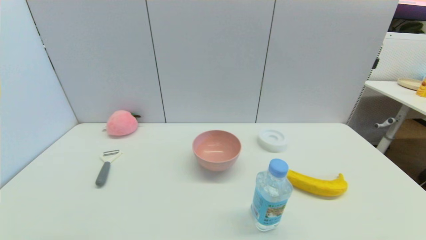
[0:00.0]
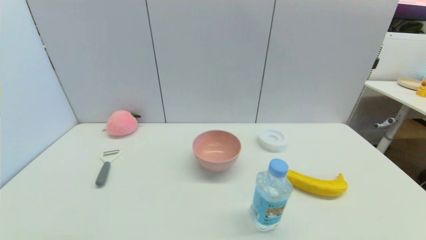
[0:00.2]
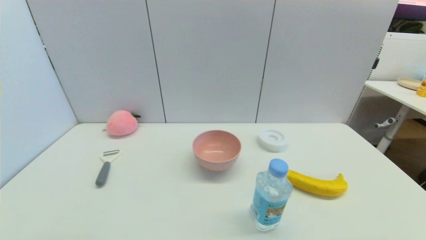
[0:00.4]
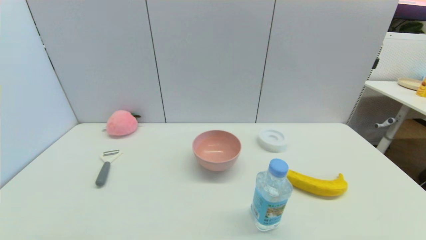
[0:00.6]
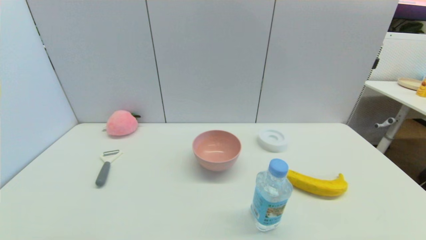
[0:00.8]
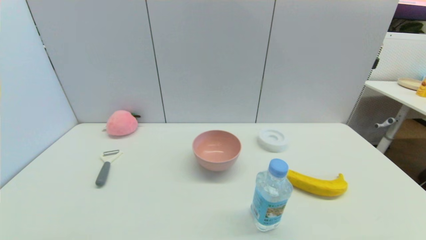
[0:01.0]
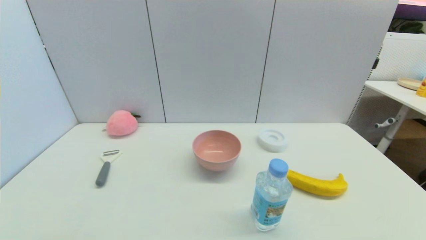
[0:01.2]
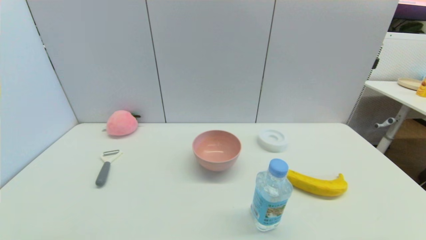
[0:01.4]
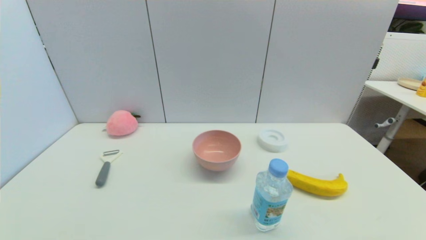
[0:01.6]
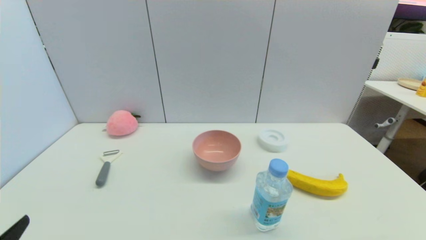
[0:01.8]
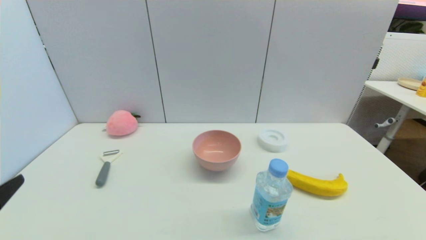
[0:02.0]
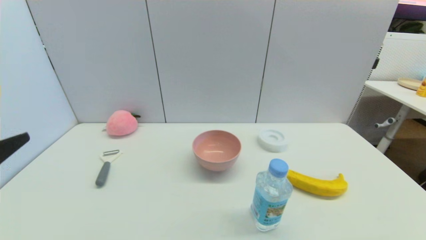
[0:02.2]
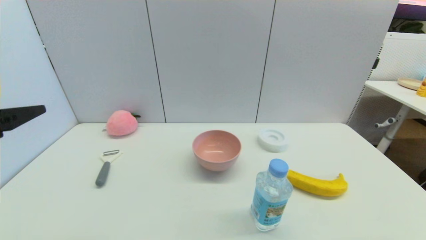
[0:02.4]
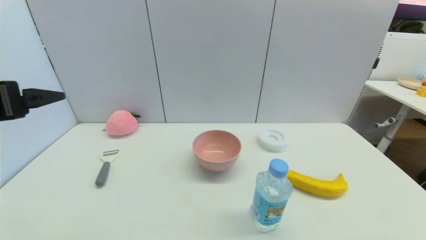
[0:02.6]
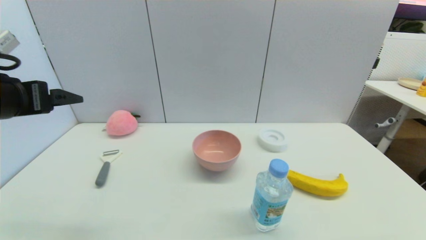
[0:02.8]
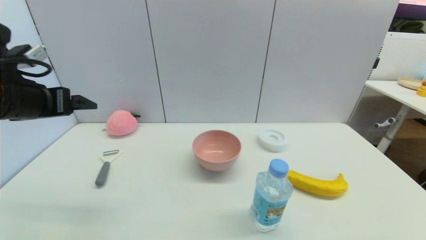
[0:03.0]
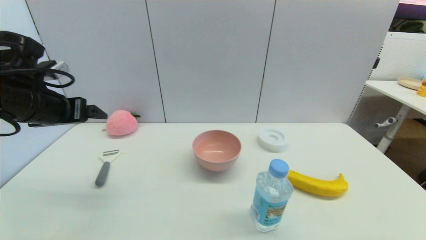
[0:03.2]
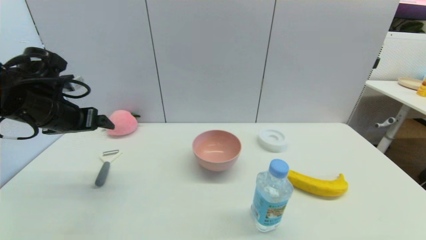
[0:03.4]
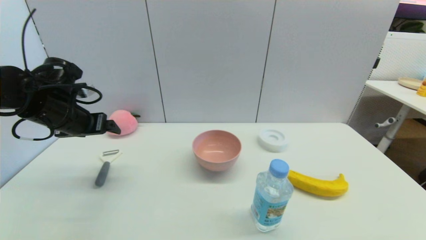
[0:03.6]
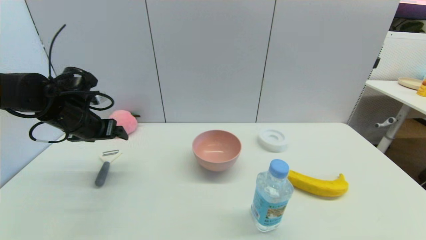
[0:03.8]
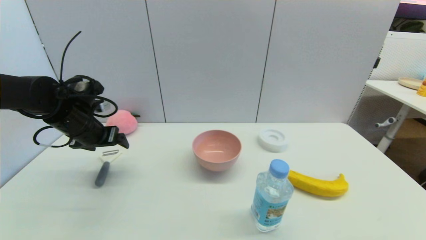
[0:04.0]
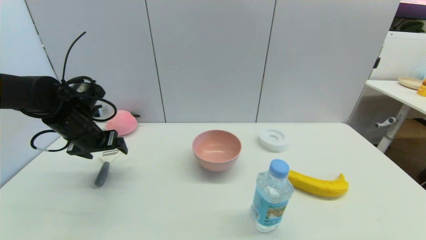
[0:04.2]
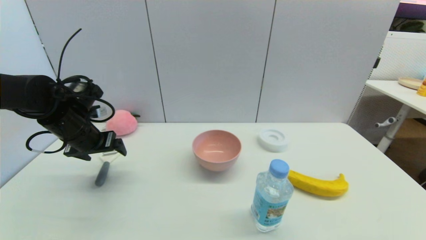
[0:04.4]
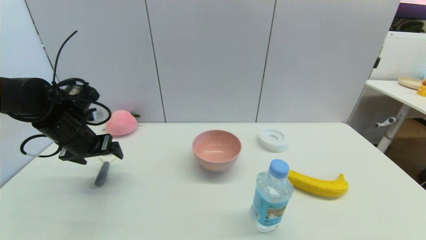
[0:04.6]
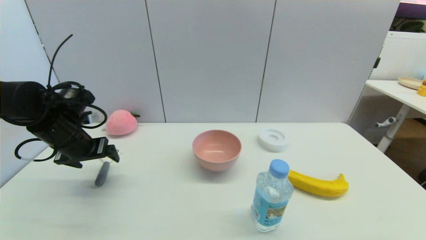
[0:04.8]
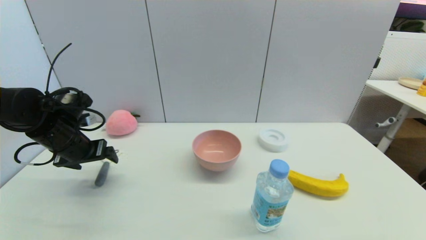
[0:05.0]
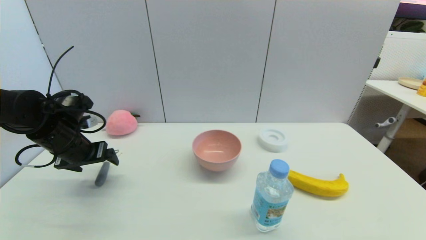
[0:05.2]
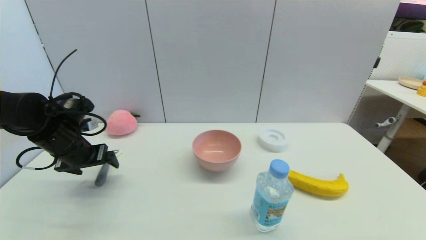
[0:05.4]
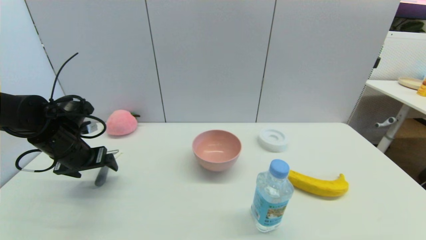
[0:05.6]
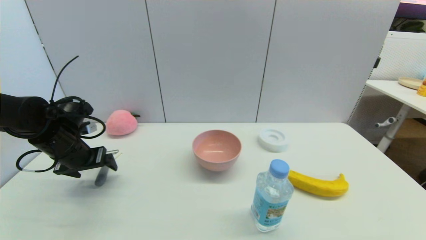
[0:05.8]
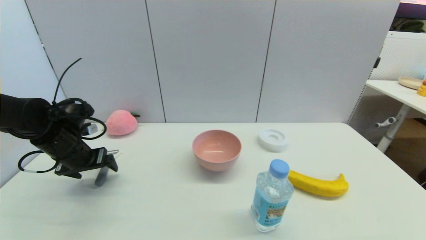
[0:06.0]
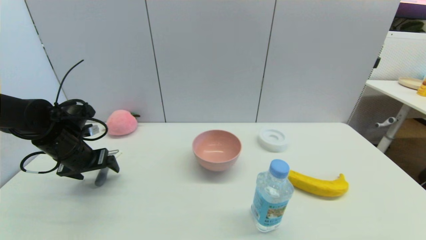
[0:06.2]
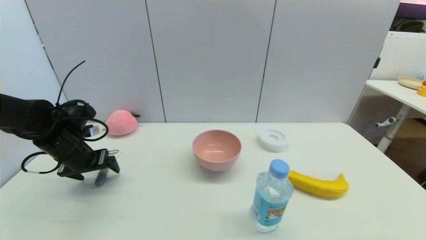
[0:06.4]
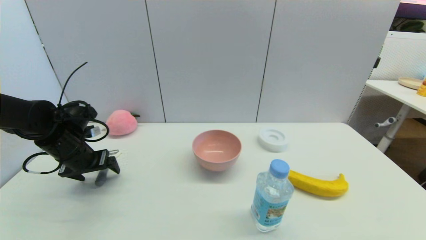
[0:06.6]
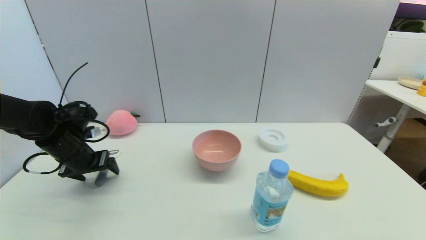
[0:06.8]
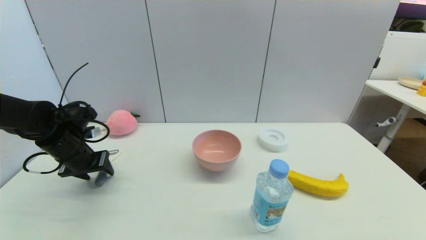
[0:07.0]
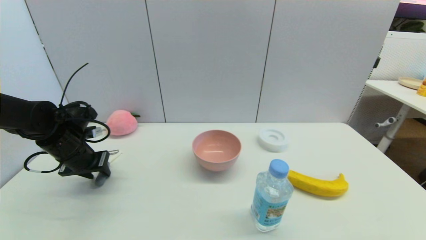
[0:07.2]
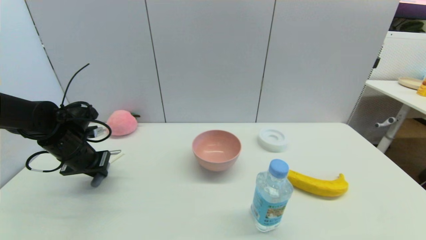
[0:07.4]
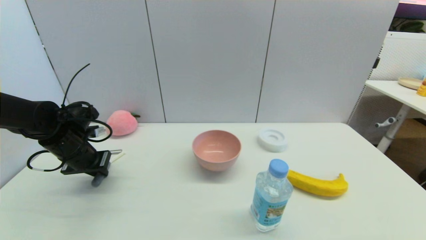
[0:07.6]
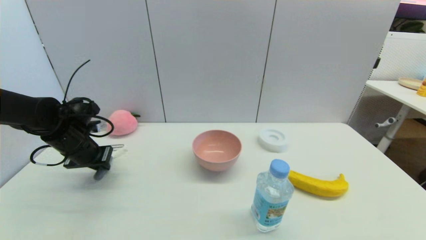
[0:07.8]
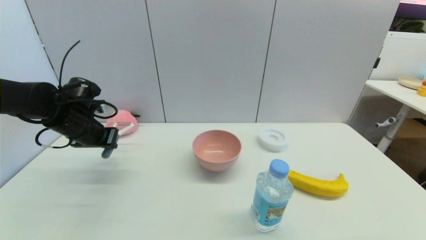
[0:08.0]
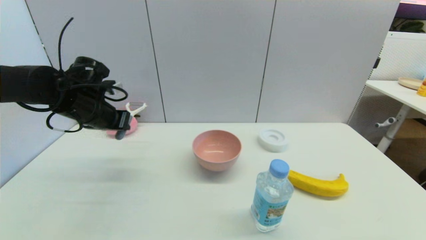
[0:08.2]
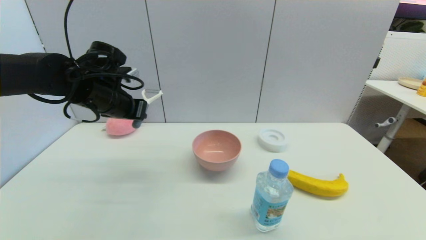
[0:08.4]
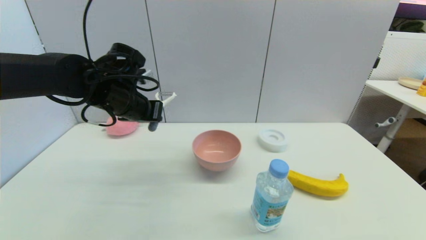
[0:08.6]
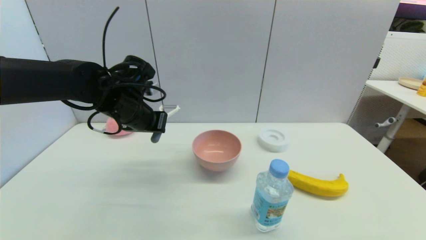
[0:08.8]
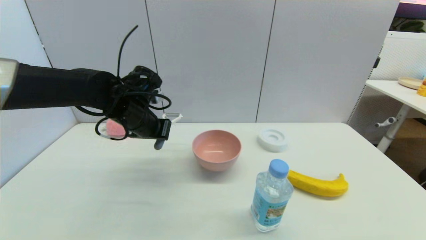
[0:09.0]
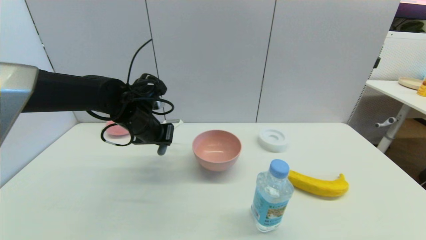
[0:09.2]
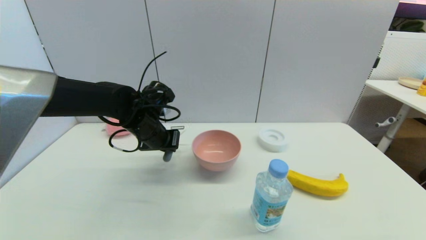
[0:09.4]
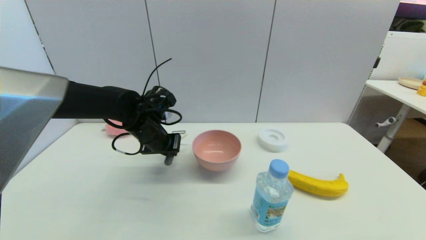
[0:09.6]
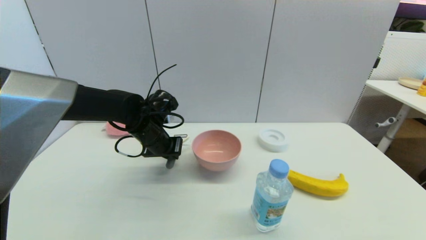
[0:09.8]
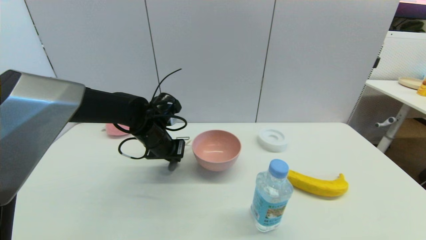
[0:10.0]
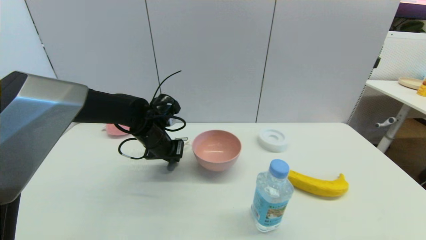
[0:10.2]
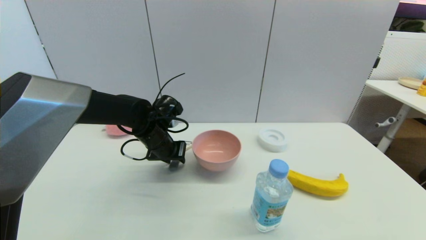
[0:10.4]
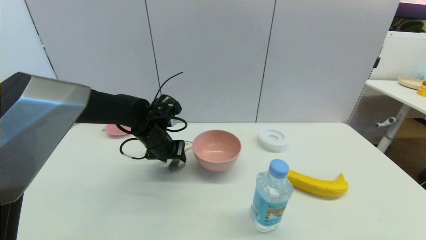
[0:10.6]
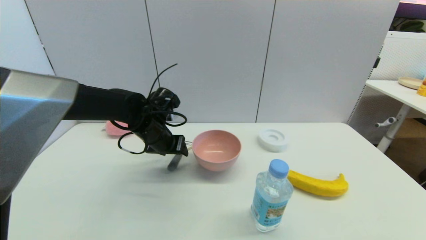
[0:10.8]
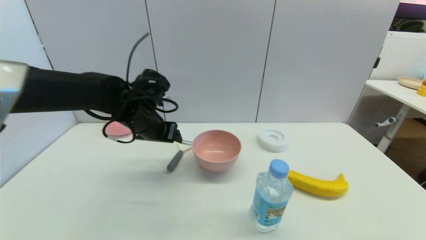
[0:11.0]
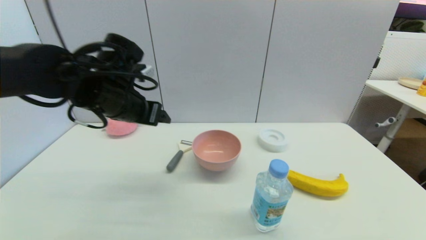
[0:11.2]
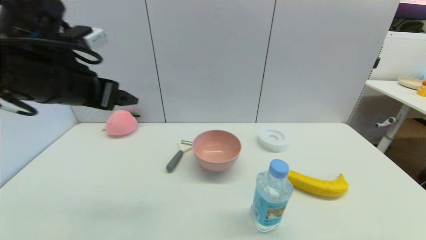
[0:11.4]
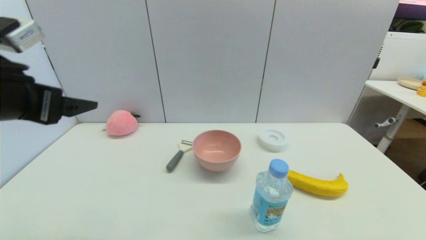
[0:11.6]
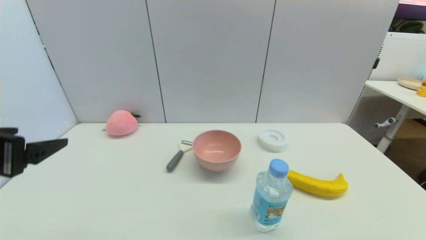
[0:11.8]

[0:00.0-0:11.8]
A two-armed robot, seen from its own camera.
Step, 0:01.8 to 0:07.8: Grasp the peeler with left gripper.
Step, 0:08.0 to 0:10.8: Place the peeler on the table with left gripper.
0:01.4 to 0:03.0: The left gripper shifts roughly 35 cm forward and upward.
0:03.0 to 0:04.4: The left gripper goes approximately 15 cm downward and forward.
0:04.4 to 0:06.0: There are only small adjustments of the grippers.
0:06.0 to 0:07.4: The left gripper closes up.
0:07.4 to 0:08.8: The left gripper travels to the right and upward by approximately 15 cm.
0:08.8 to 0:10.4: The left gripper goes about 10 cm downward, and opens its fingers.
0:10.4 to 0:11.8: The left gripper moves backward, to the left and upward, about 30 cm, and opens up.

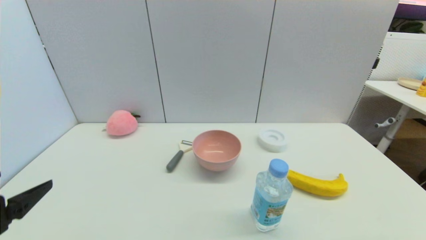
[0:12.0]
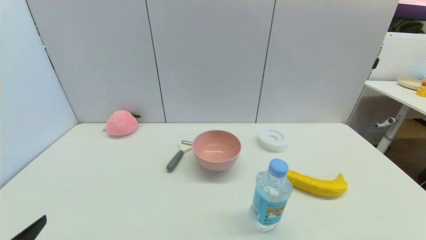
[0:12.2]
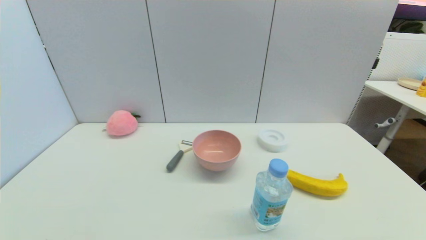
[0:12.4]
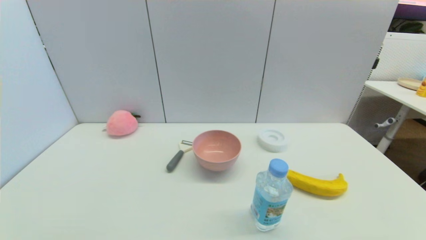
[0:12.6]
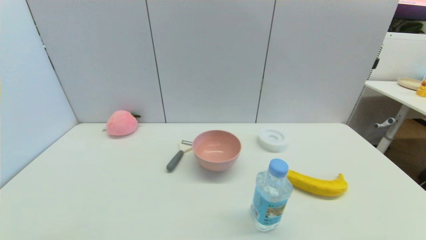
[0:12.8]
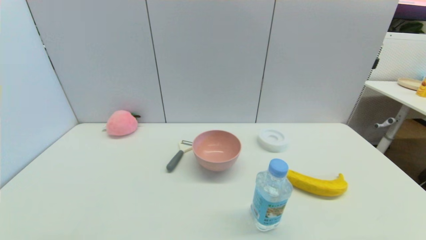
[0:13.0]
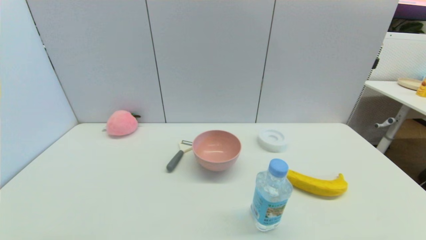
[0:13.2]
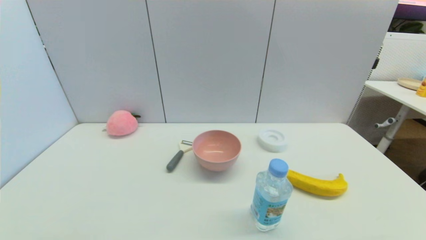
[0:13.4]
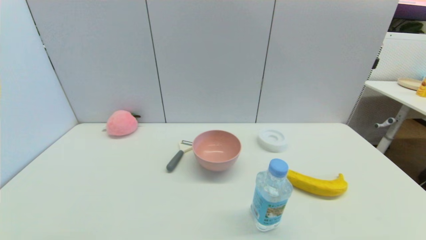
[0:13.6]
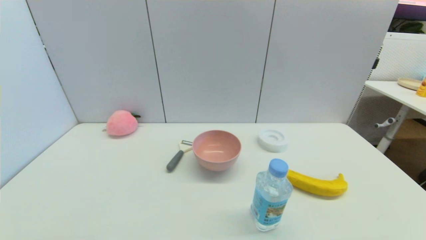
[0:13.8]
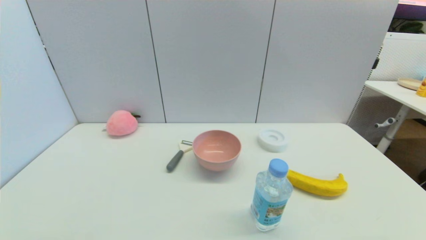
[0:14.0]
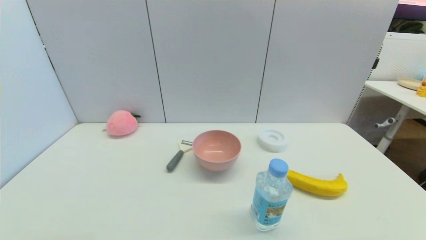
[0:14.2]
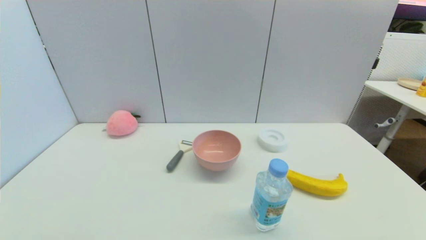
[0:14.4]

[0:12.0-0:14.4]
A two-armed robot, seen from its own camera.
0:12.0 to 0:13.2: The left gripper is displaced downward and backward by roughly 15 cm.
0:13.2 to 0:14.4: The two grippers keep their place.

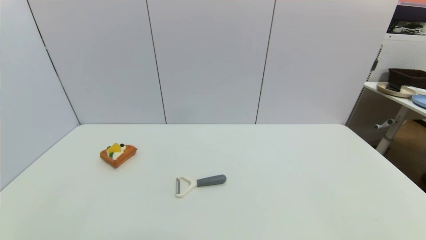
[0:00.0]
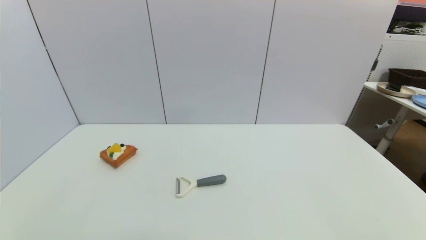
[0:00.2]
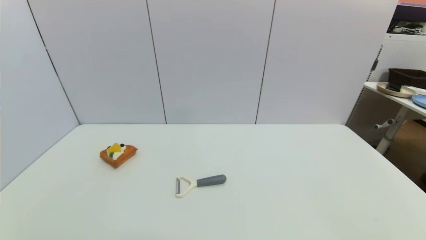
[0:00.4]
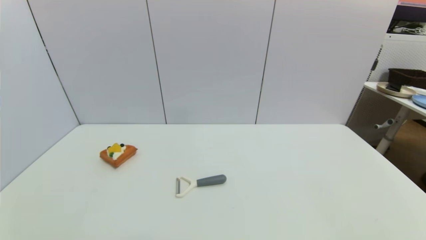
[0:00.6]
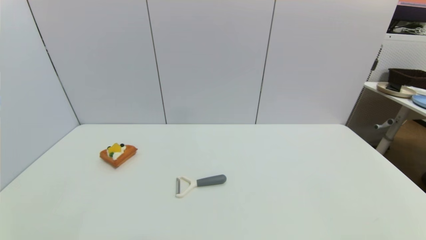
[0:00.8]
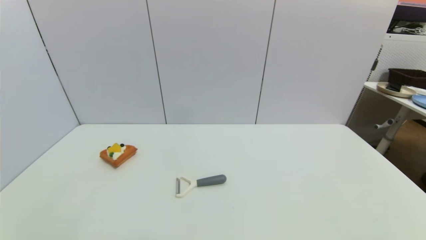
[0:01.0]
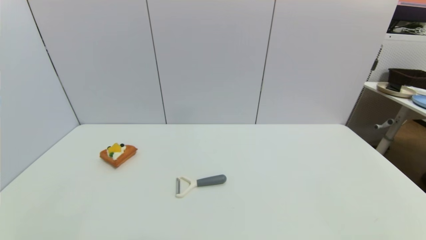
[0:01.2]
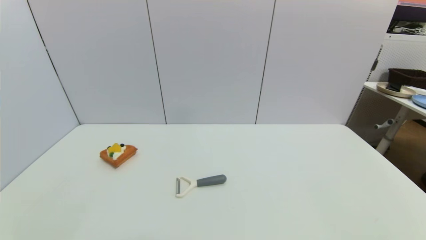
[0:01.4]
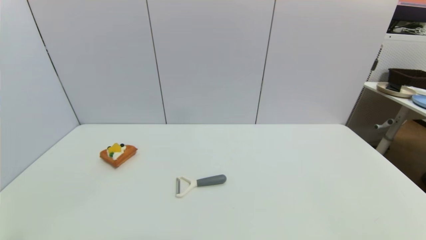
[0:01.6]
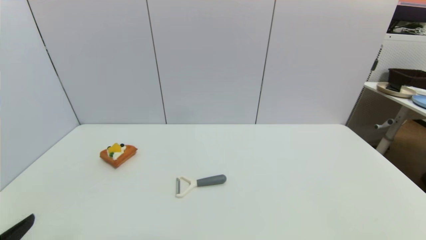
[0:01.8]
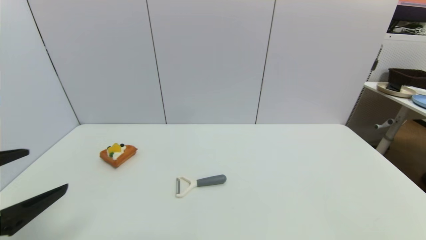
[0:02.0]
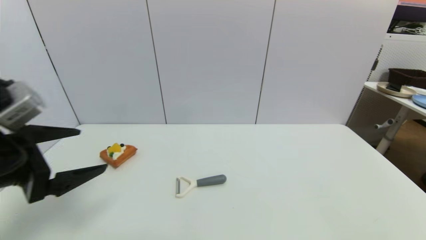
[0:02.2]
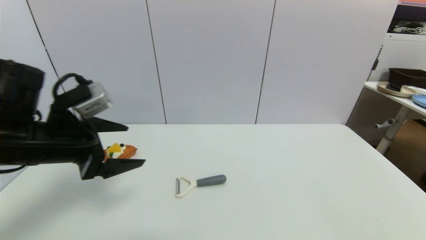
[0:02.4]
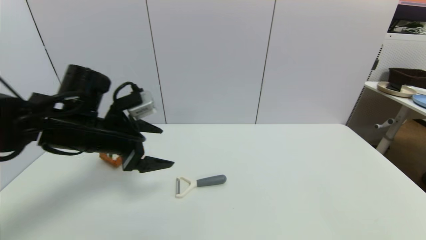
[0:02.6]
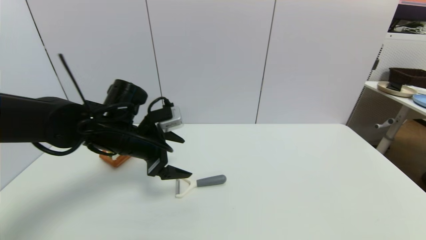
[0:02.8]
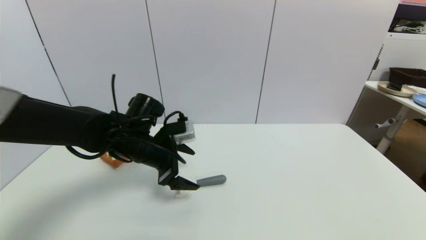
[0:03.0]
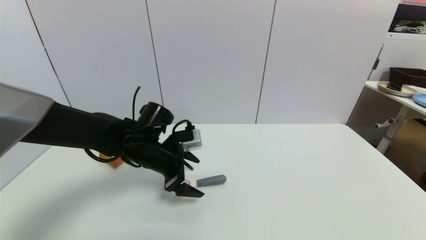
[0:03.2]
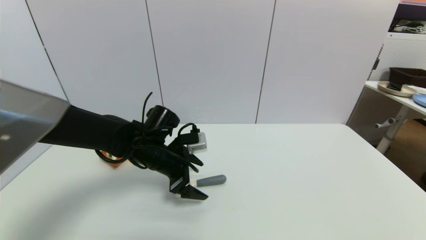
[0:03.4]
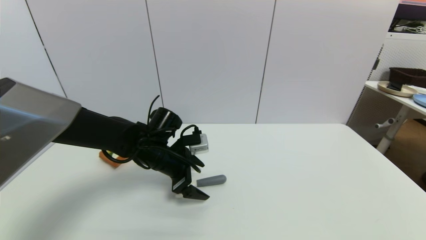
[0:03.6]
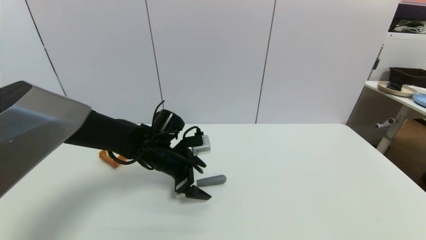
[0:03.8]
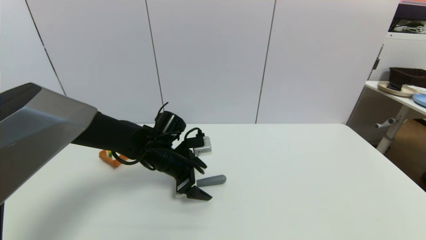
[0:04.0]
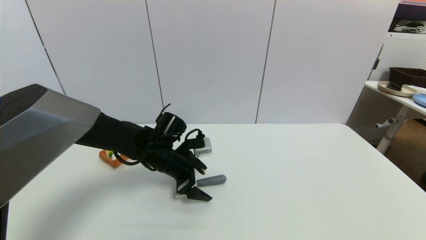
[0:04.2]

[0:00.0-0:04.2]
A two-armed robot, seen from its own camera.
0:01.4 to 0:02.8: The left gripper heads forward and to the right, covering about 35 cm.
0:02.8 to 0:04.2: The left gripper moves downward and to the right, roughly 10 cm.
